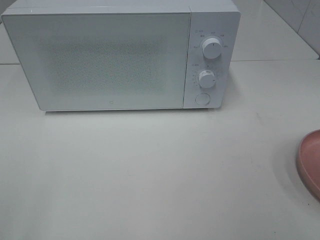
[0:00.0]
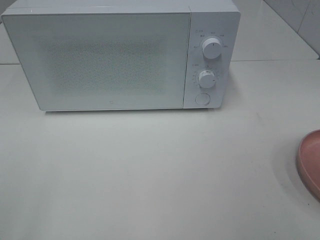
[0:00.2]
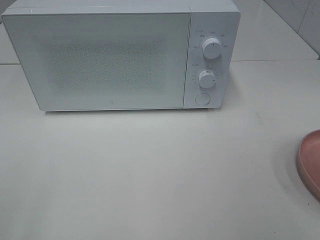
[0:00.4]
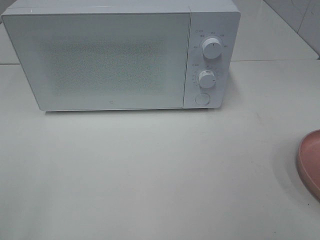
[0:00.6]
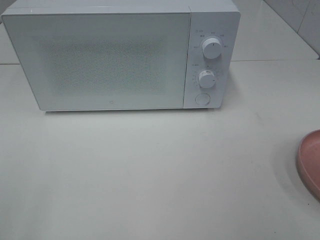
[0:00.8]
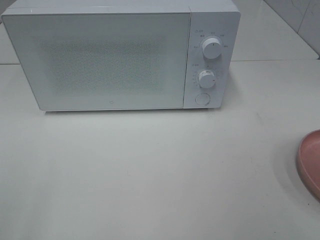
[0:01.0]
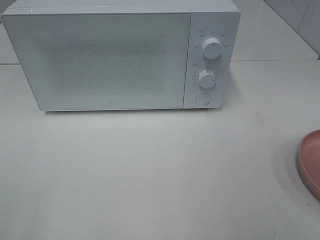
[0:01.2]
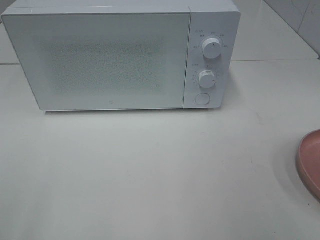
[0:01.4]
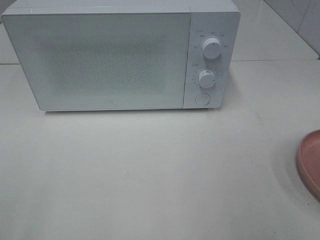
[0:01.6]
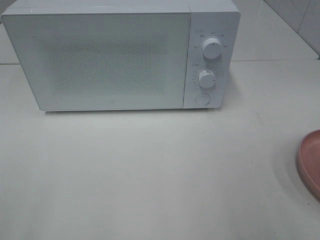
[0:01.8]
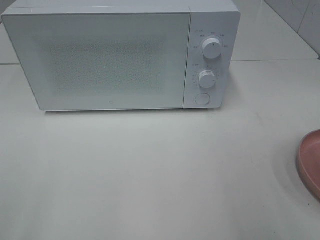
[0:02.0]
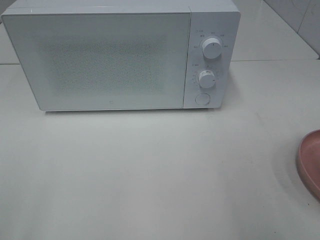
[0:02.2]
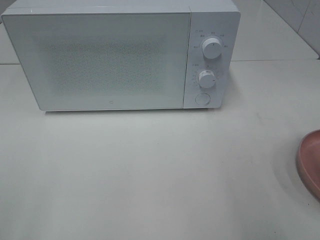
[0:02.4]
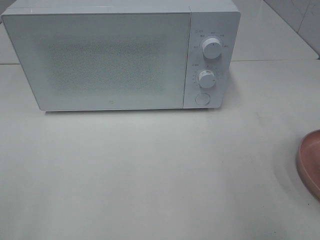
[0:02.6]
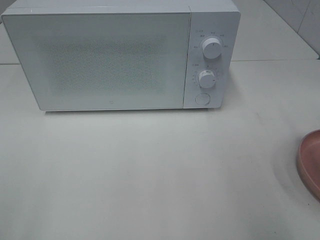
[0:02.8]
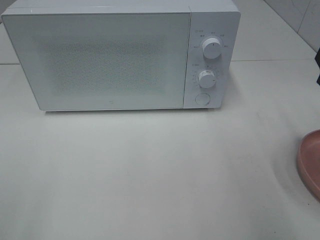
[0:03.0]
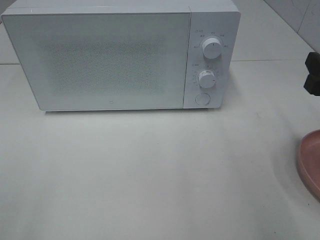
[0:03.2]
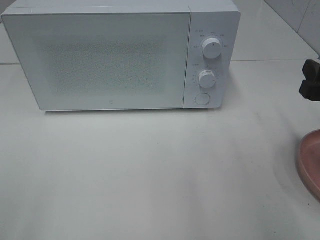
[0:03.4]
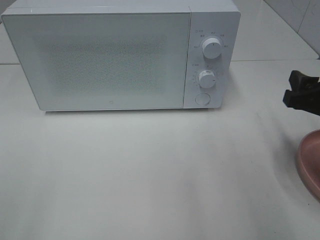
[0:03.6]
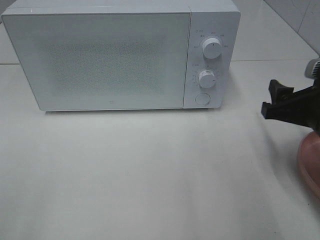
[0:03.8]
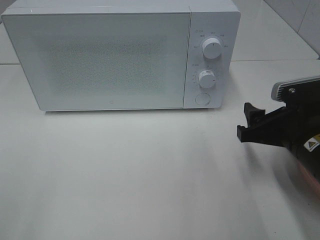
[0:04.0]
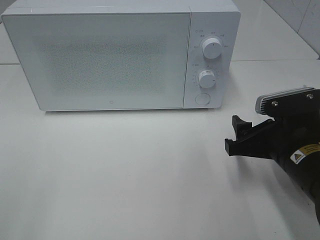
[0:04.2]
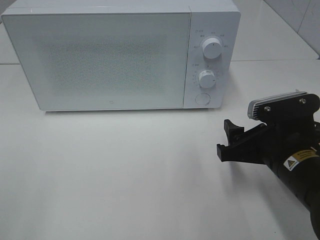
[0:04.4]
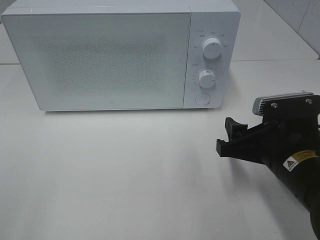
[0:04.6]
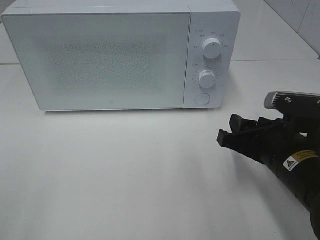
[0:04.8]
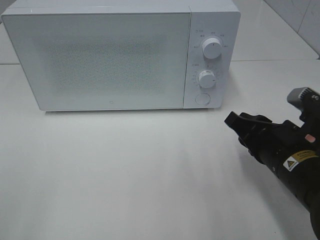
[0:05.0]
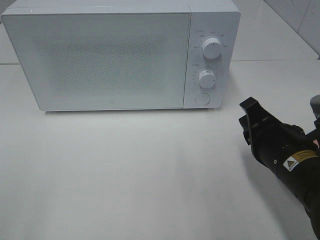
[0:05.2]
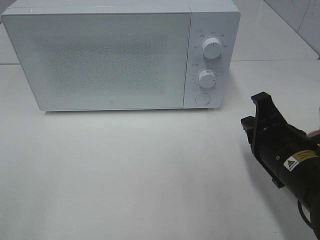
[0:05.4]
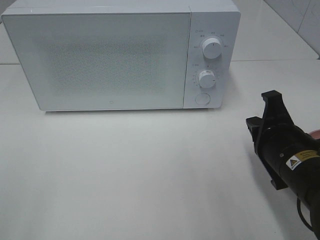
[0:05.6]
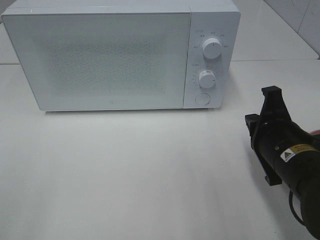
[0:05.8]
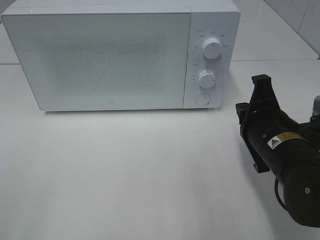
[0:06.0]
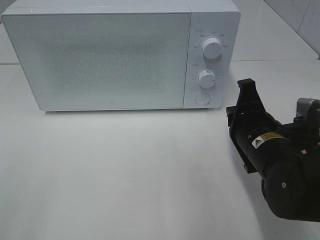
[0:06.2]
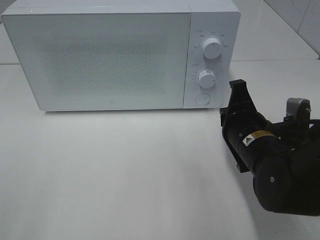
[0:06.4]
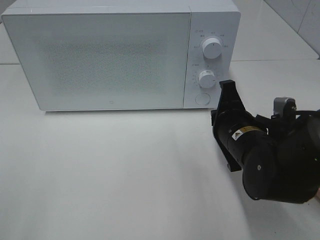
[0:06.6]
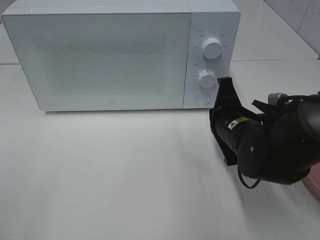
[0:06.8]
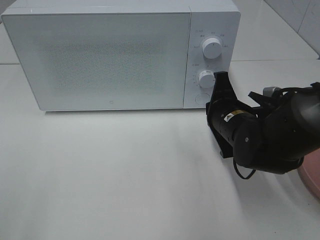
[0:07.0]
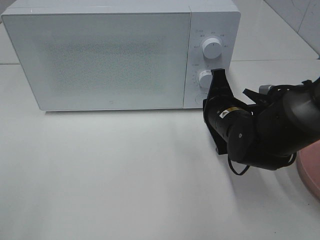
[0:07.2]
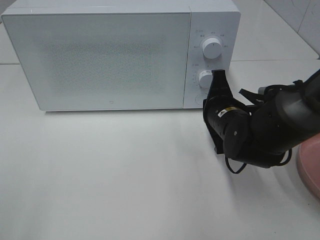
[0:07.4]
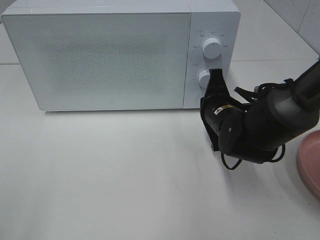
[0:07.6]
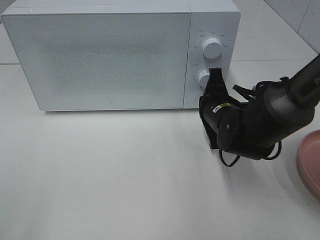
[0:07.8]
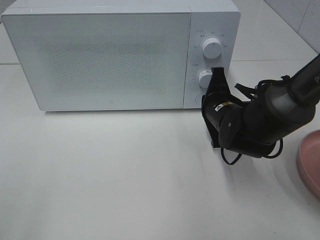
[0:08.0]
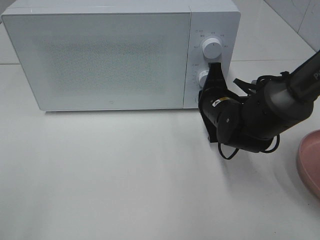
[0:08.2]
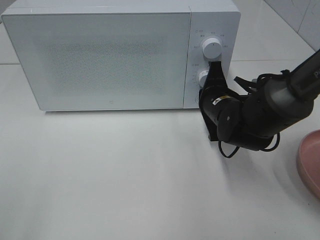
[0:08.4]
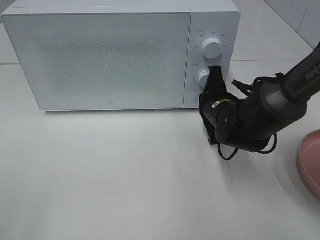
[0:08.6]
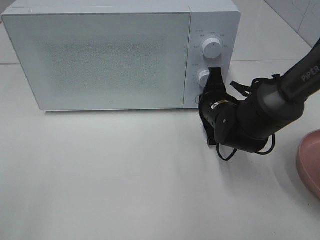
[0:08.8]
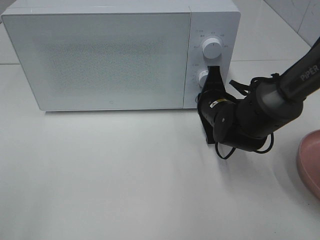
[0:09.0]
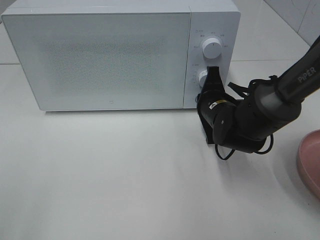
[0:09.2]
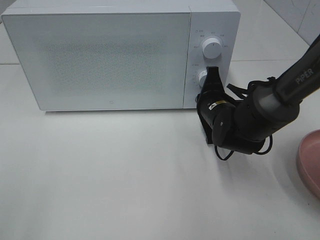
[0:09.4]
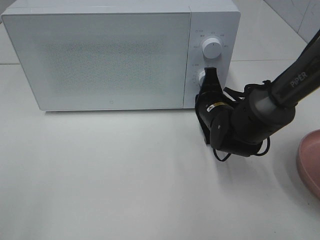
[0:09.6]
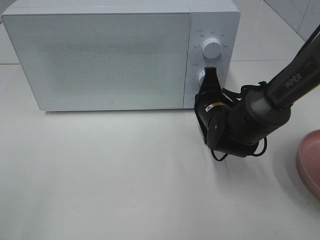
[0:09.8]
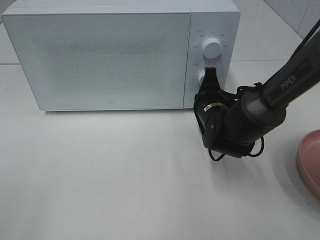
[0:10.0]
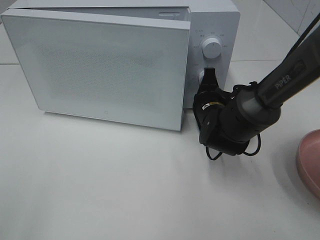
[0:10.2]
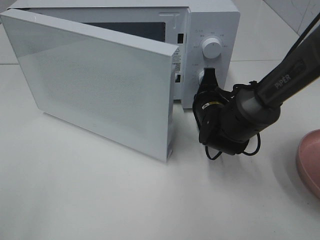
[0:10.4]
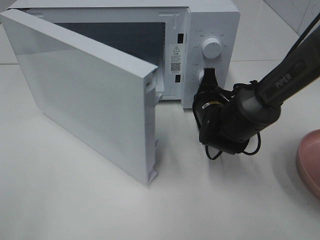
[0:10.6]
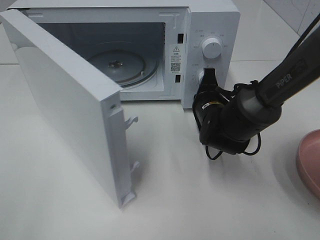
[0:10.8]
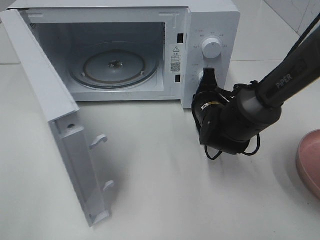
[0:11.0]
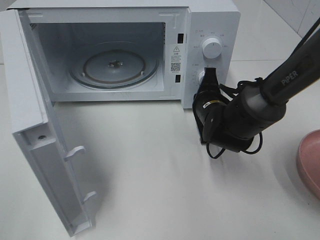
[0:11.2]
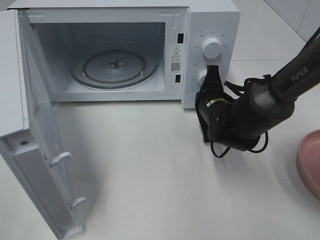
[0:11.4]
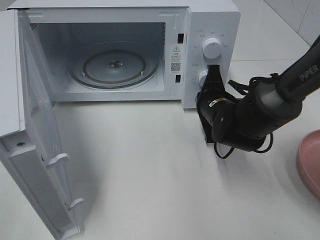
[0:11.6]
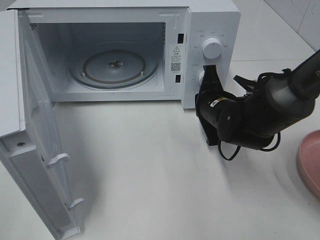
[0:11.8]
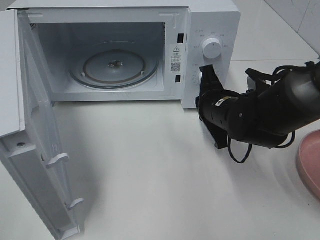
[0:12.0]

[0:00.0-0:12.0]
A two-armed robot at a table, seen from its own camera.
Task of the whole recording: Heat the burger.
Step, 0:00.0 to 0:11.6: Right hand: press the switch.
0:03.0 to 0:04.4: The right gripper goes roughly 15 cm to the left and downward.
0:04.4 to 0:06.0: The right gripper closes its fingers.
0:06.0 to 0:07.6: The right gripper travels forward by approximately 10 cm.
0:07.6 to 0:10.4: The grippers stay close to where they were, moving slightly.
0:10.4 to 0:12.0: The right gripper moves roughly 5 cm.

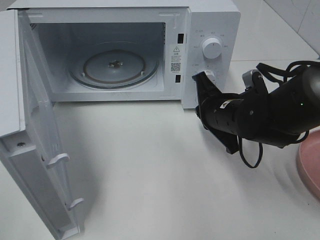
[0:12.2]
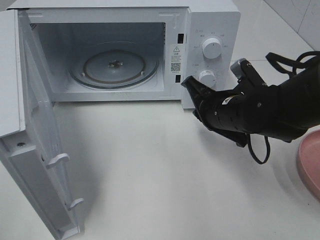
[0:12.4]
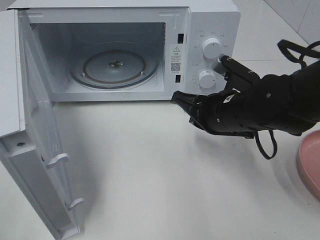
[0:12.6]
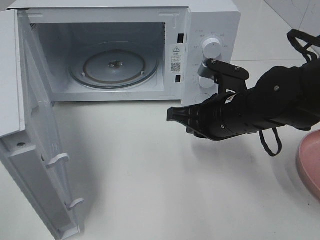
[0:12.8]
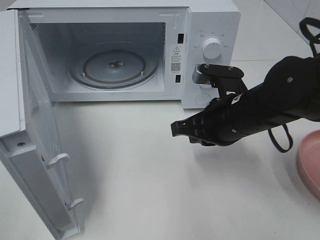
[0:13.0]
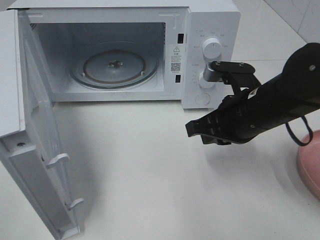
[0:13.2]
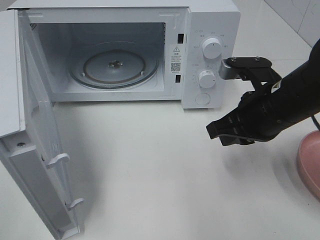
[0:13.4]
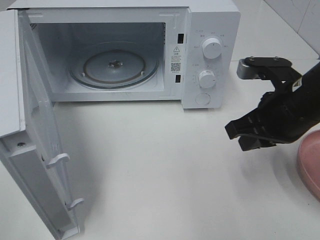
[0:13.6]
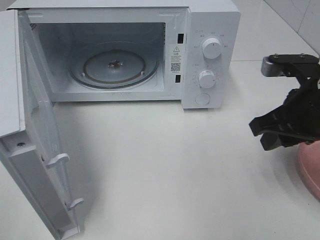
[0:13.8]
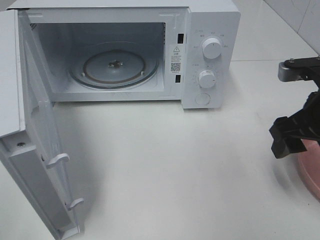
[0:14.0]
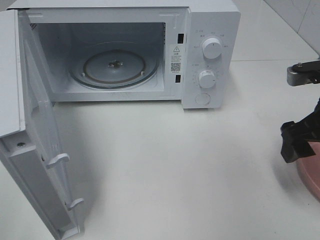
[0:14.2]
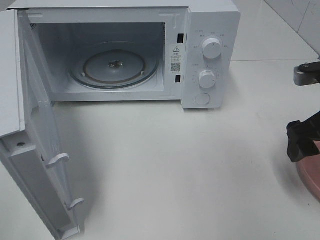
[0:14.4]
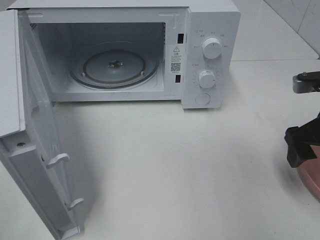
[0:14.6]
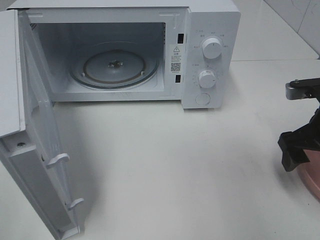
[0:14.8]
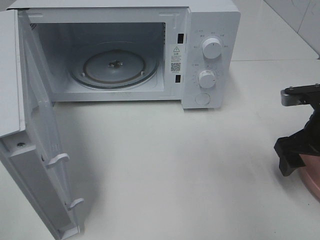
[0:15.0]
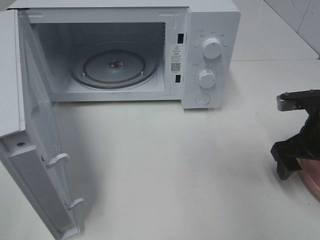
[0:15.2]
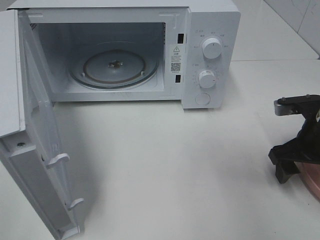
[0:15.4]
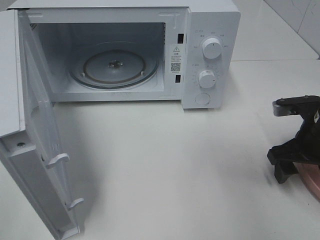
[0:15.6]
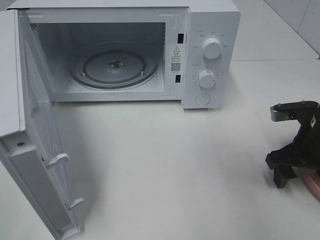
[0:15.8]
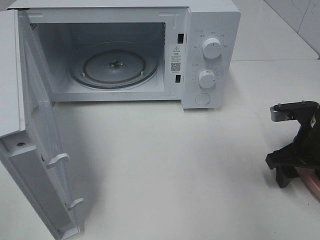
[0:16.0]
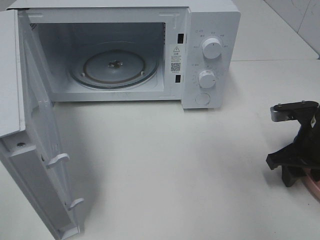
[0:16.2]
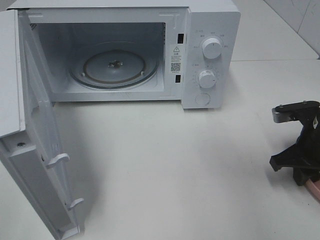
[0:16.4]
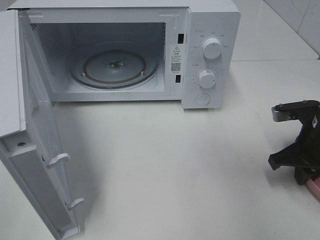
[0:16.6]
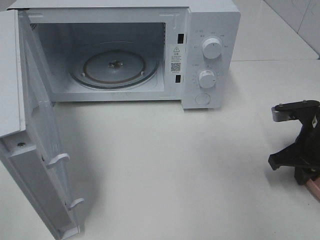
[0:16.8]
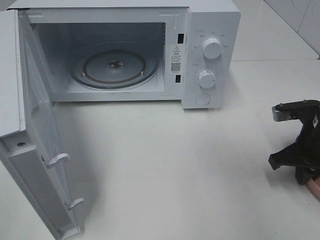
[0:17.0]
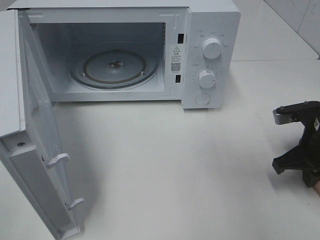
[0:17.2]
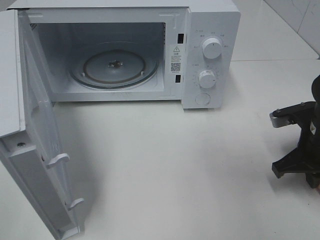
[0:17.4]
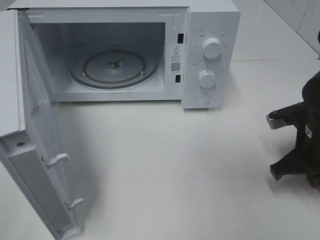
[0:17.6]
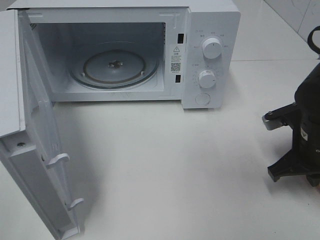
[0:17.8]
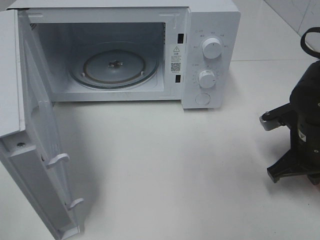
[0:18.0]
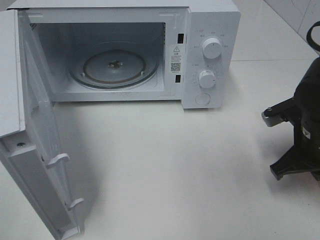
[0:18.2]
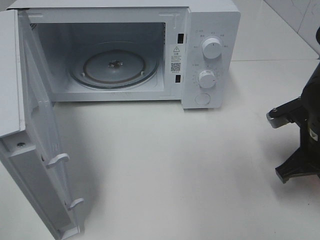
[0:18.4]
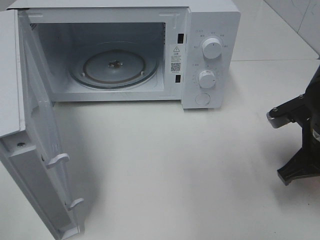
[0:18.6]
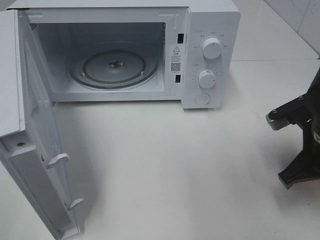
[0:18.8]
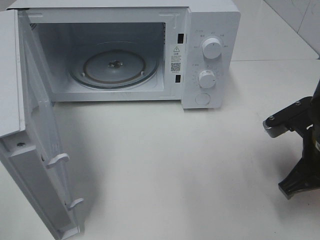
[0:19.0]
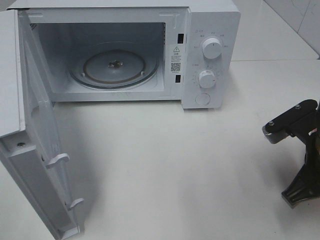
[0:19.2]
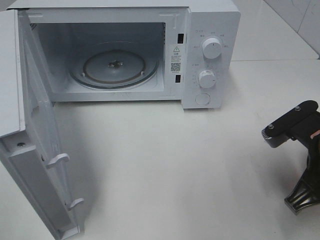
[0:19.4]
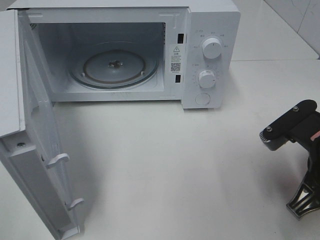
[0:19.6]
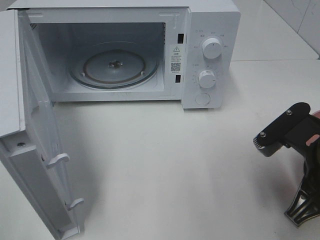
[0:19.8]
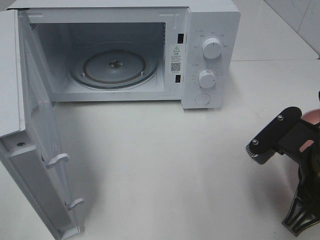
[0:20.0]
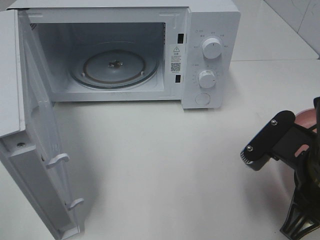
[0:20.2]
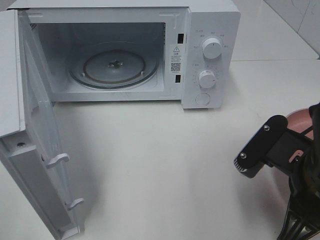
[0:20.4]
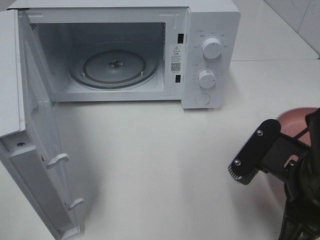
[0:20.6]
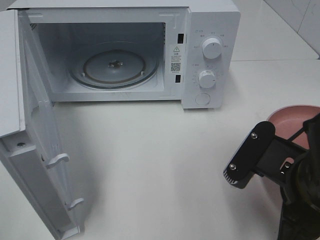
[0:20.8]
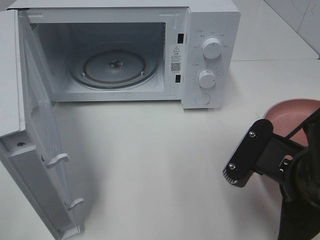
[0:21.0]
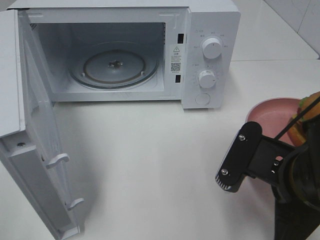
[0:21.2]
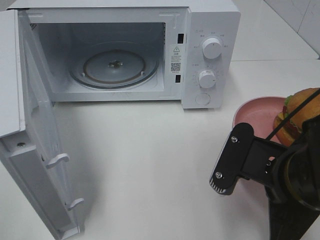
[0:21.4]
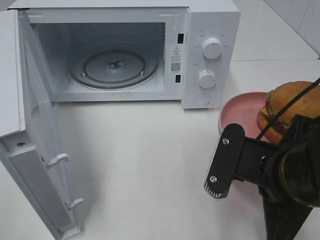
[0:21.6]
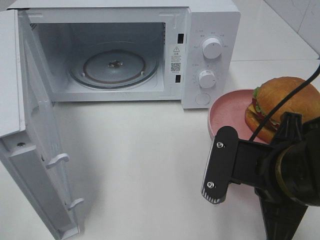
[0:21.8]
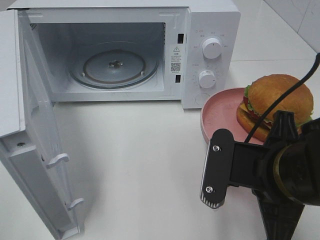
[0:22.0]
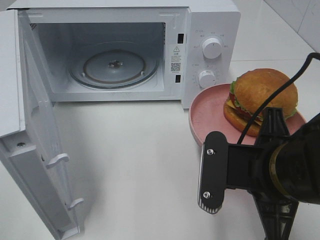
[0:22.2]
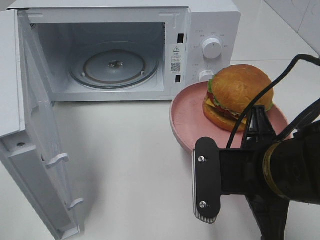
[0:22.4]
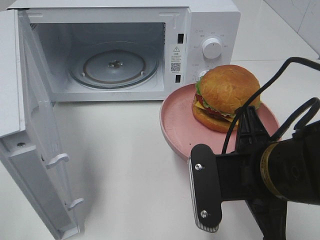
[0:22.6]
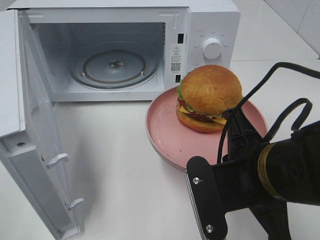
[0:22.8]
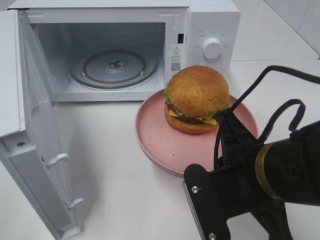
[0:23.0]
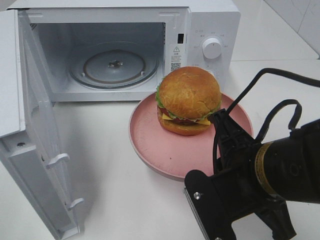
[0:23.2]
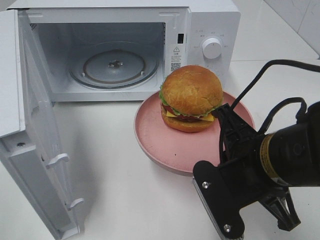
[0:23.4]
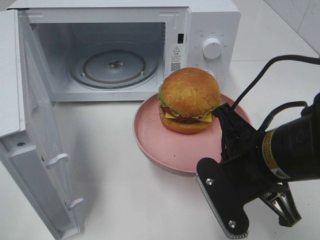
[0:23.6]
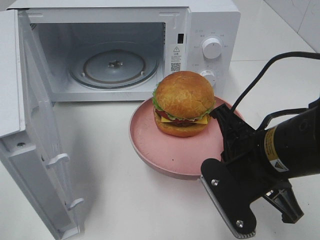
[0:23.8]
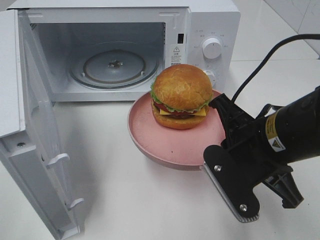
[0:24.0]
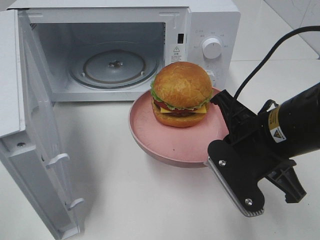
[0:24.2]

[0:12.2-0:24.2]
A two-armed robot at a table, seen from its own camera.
Task of the whole recording: Heat the burger.
Step, 0:12.2 to 0:17.4: Right hand: grab the plate with the hamburger.
0:12.2 to 0:13.8: The right gripper heads to the right, upward and backward, covering about 15 cm, and opens.
0:13.8 to 0:15.2: The right gripper travels downward by roughly 5 cm, and opens.
0:15.2 to 0:16.6: The right gripper closes up.
0:16.6 to 0:18.2: The grippers move only a little.
0:18.2 to 0:19.8: The right gripper goes approximately 10 cm backward.
0:19.8 to 0:21.2: The right gripper shifts by some 5 cm.
0:22.6 to 0:24.2: The right gripper travels forward by approximately 5 cm.
